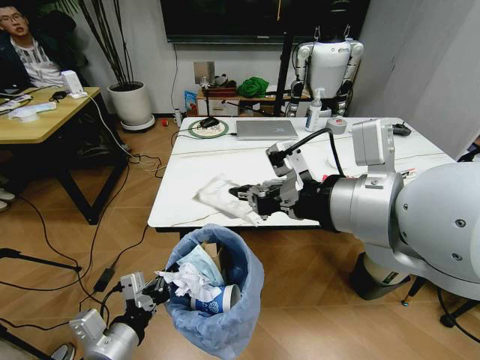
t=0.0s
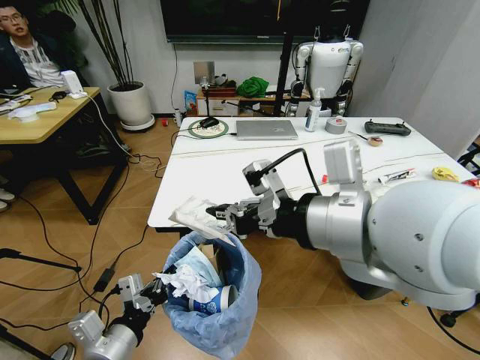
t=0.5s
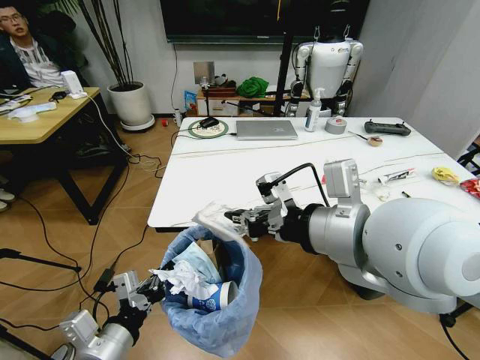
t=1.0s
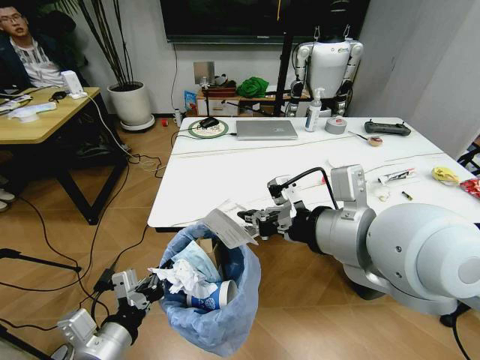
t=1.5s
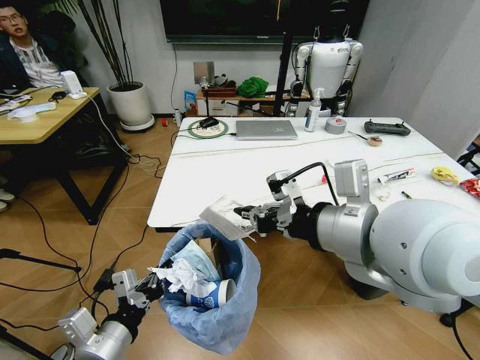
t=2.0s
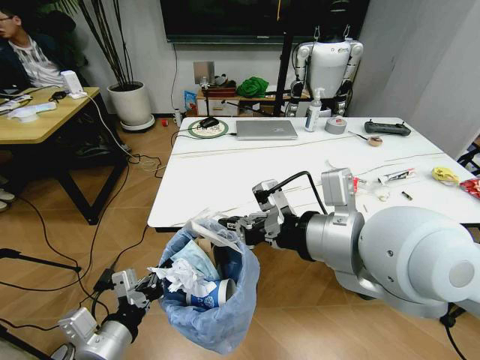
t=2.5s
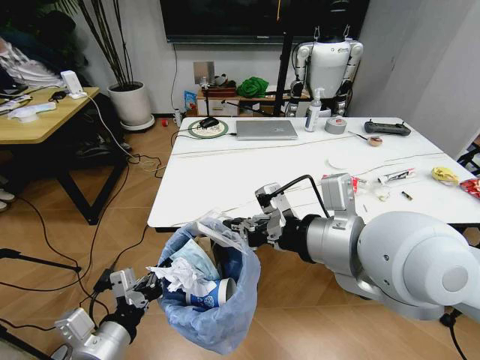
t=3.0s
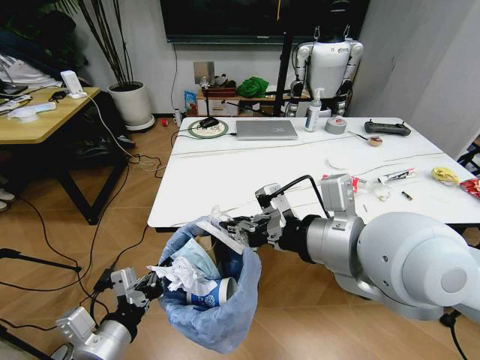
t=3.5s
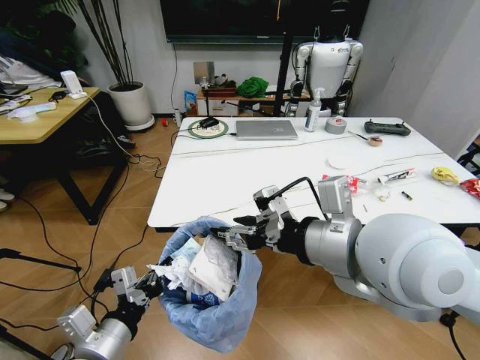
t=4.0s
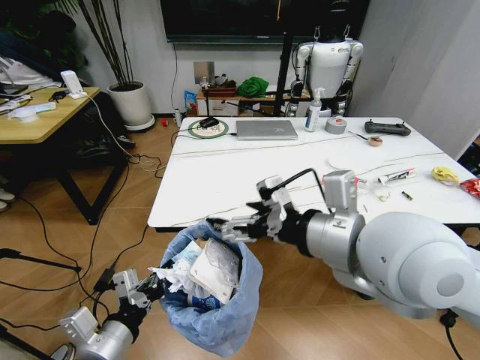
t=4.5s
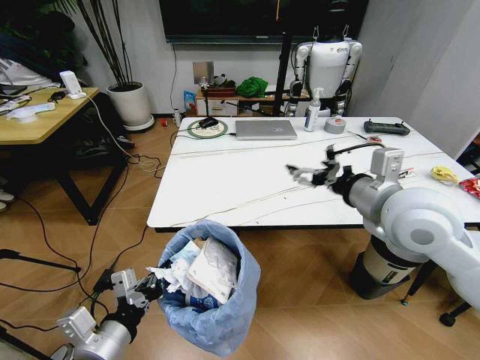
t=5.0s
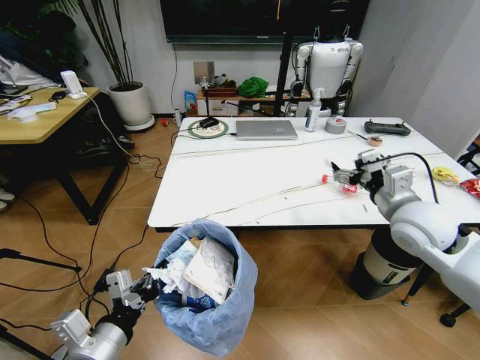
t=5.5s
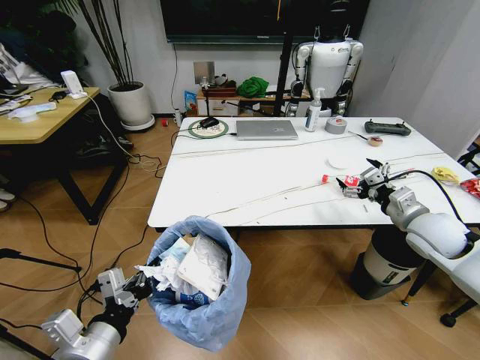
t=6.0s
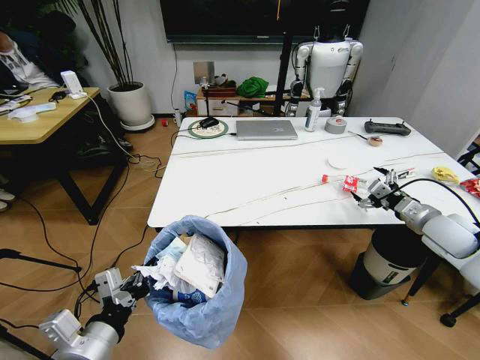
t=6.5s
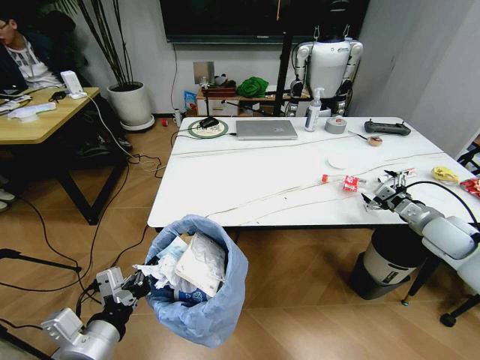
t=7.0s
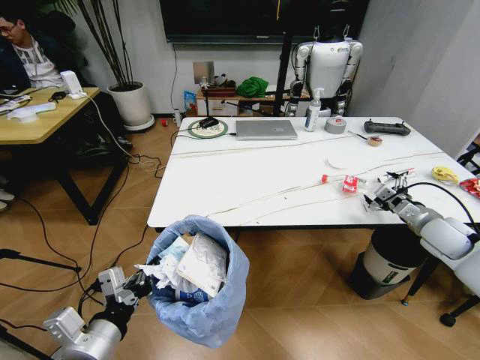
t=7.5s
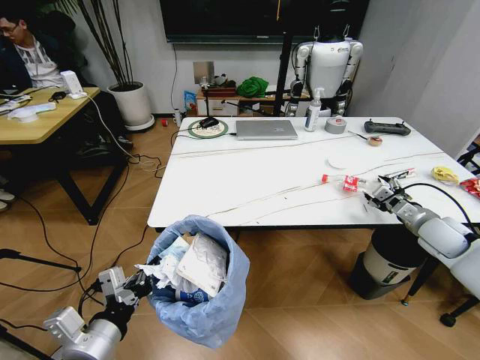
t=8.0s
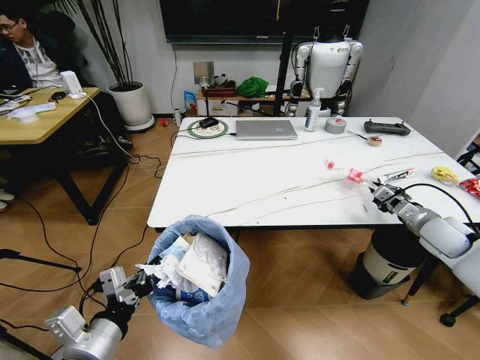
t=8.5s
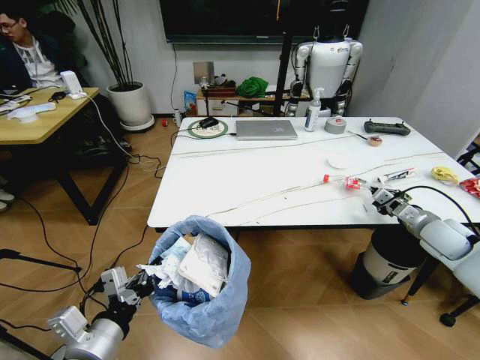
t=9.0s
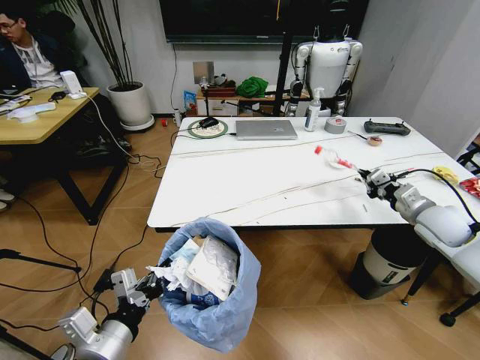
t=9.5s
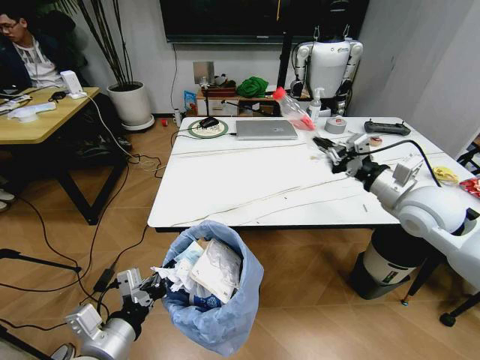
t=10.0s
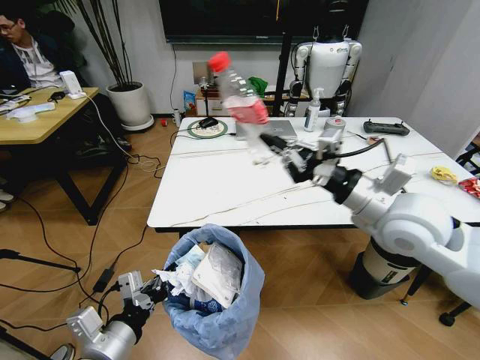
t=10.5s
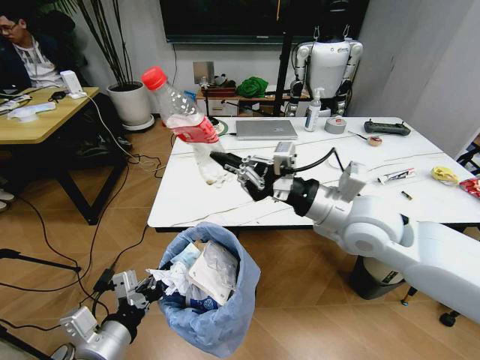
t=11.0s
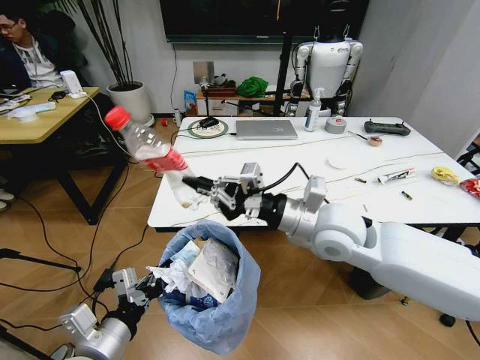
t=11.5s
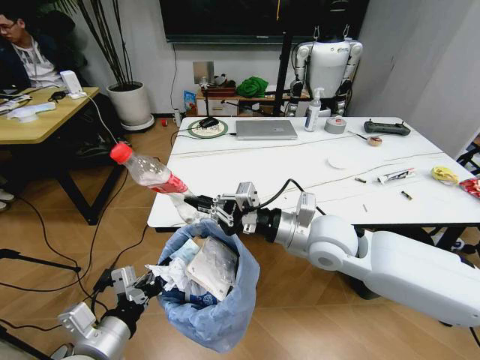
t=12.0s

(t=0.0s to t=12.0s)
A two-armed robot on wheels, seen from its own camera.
Task of the whole recording: Pick up the trash bin and place the trash from the table into it.
t=0.0s - t=2.0s: The right gripper heads downward, covering roughly 5 cm.
t=2.0s - t=4.0s: The right gripper opens.
t=4.0s - t=6.0s: The right gripper travels to the right, downward and forward by some 35 cm, and opens its fingers.
t=6.0s - t=8.0s: The right gripper shifts roughly 10 cm to the right and downward.
t=8.0s - t=10.0s: The right gripper travels to the left and upward by some 20 cm, and closes its fingers.
t=10.0s - t=12.0s: The right gripper is displaced to the left by approximately 20 cm.

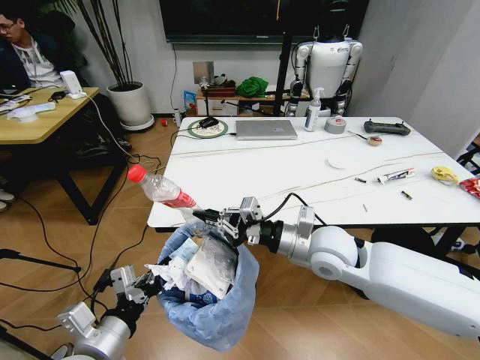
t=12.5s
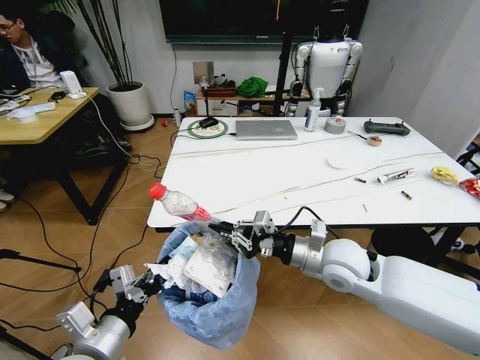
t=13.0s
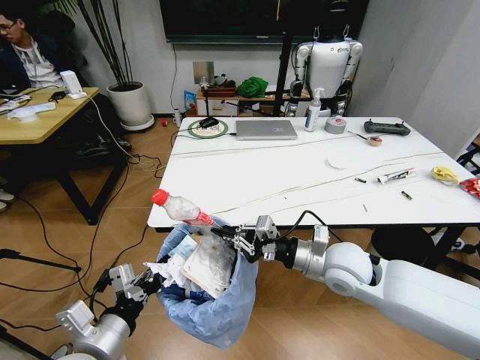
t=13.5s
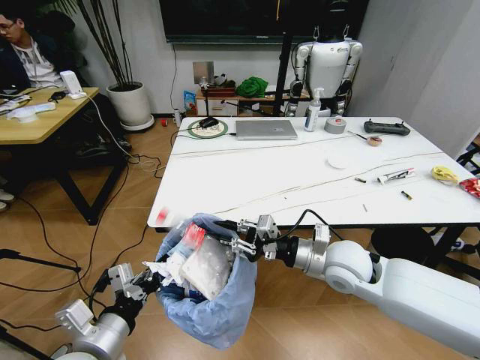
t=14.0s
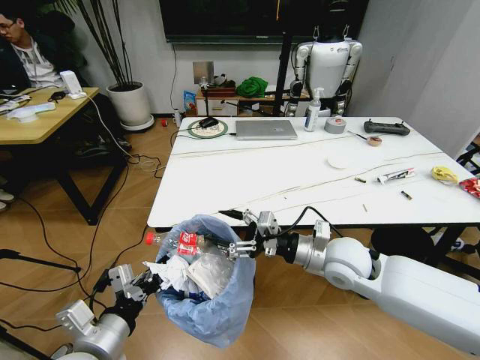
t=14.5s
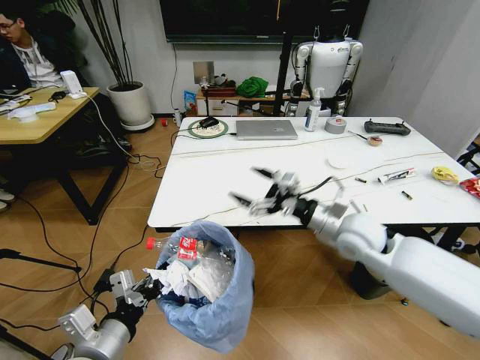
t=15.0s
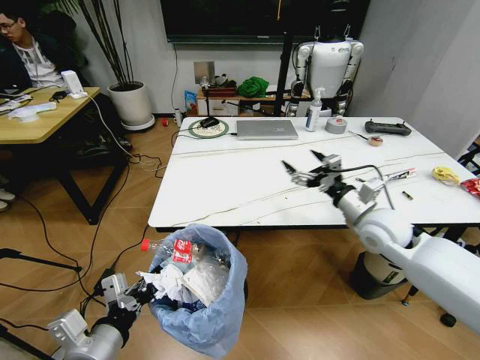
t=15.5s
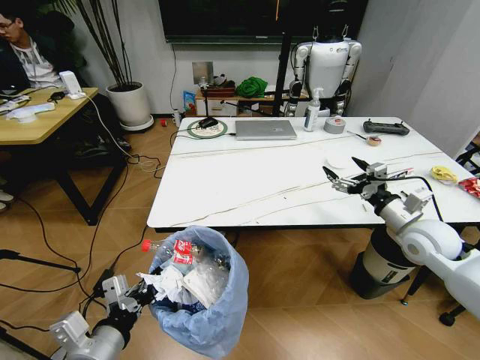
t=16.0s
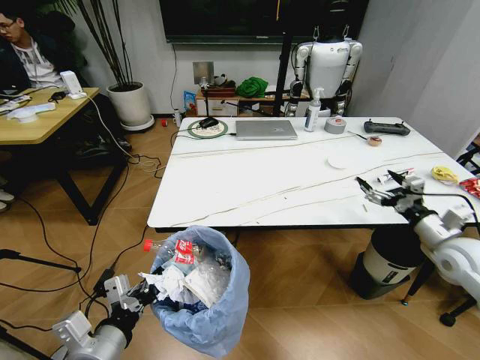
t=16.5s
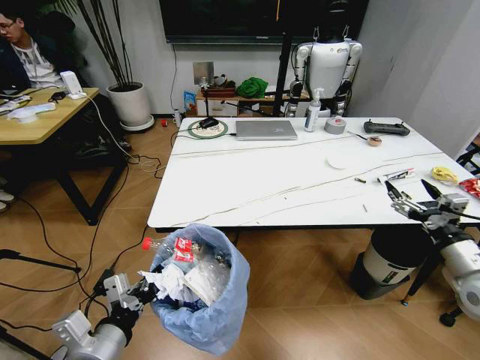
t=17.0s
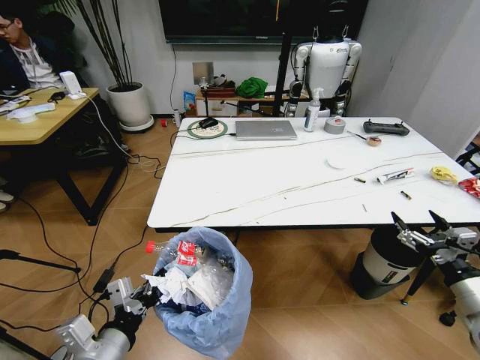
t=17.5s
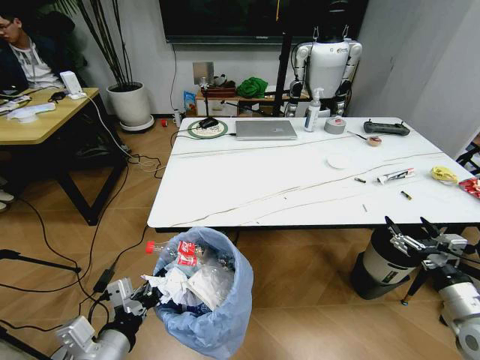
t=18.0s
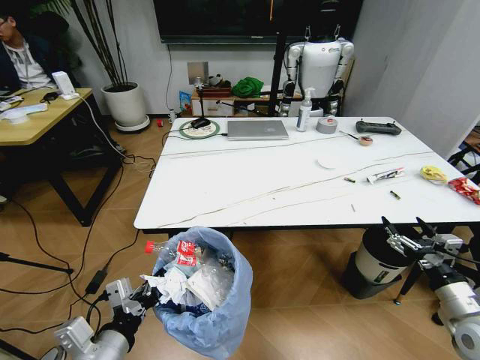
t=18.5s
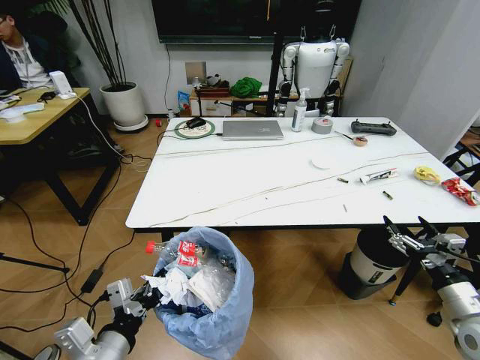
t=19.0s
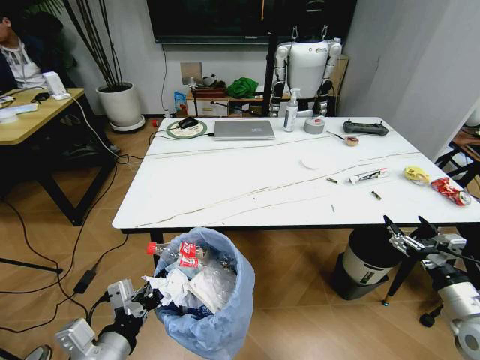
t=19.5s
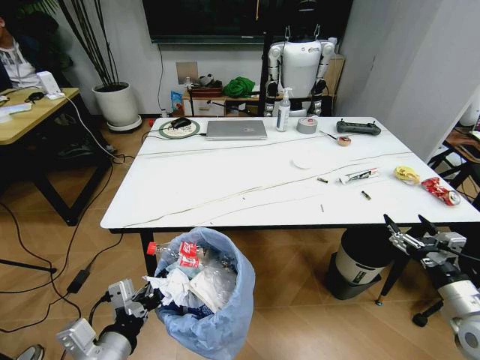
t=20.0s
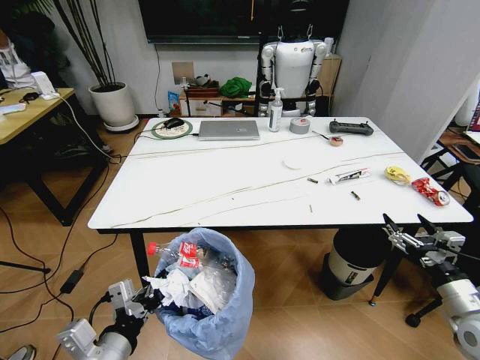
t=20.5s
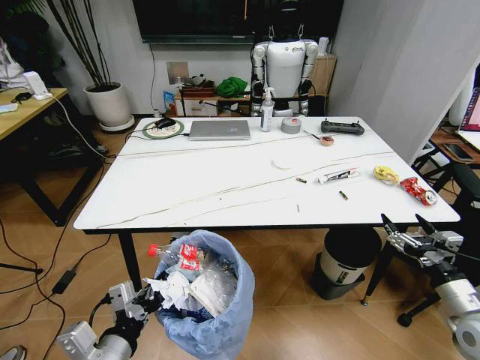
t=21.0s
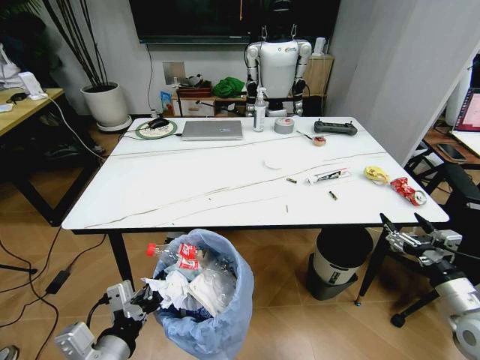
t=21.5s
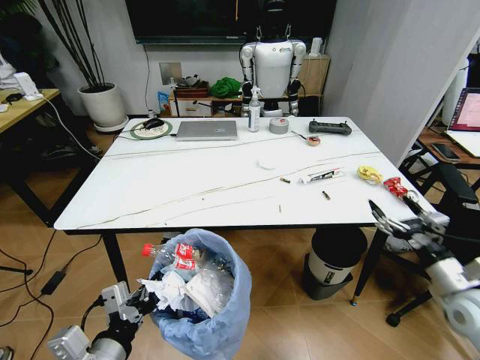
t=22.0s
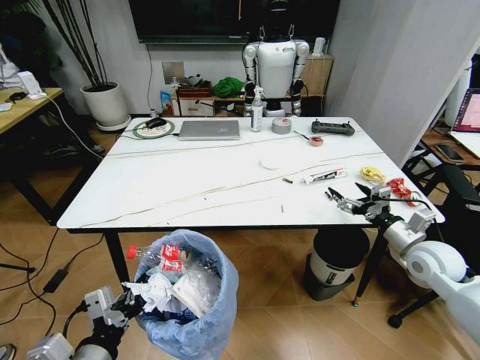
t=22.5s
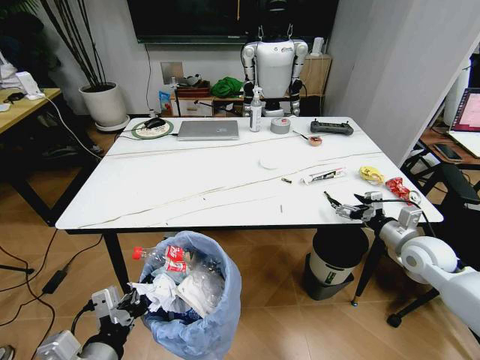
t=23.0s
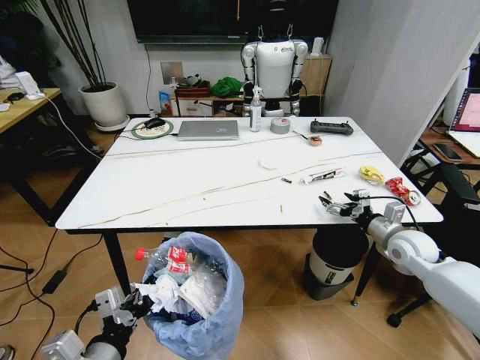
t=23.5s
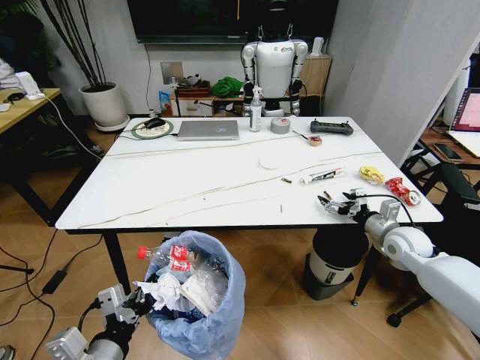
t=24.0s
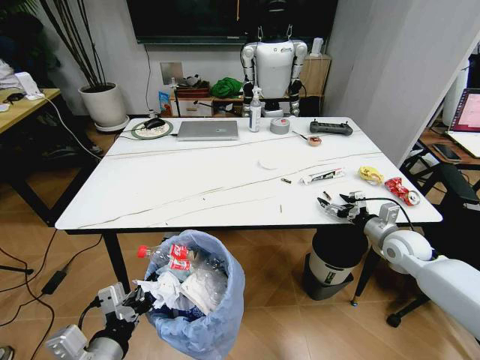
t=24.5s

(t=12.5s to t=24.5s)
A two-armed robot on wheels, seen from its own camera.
Task of the whole recording: Pick up the trash bin and place the trash from the table into it.
t=12.5s - t=14.5s: The right gripper opens its fingers.
t=14.5s - t=16.5s: The right gripper moves to the right, about 25 cm.
t=16.5s - t=18.5s: The right gripper goes some 15 cm backward and downward.
t=20.5s - t=22.5s: The right gripper travels forward by about 15 cm.
t=22.5s - t=24.5s: The right gripper moves forward, approximately 5 cm.

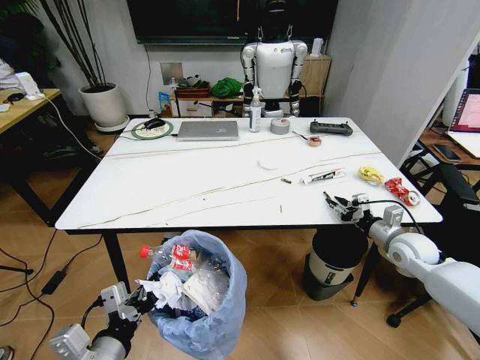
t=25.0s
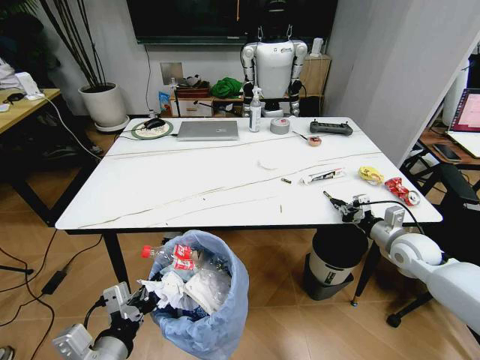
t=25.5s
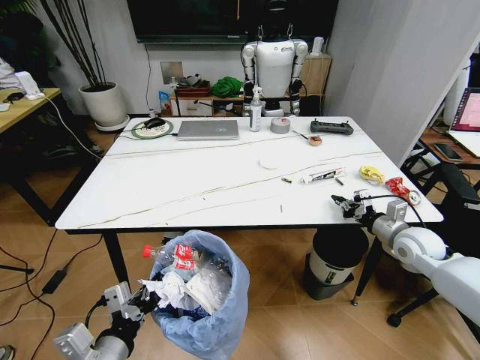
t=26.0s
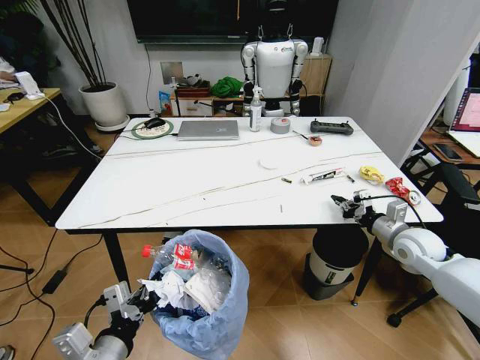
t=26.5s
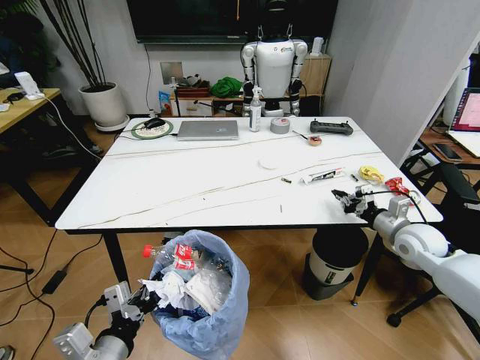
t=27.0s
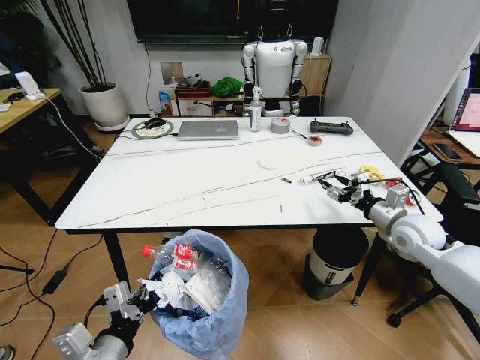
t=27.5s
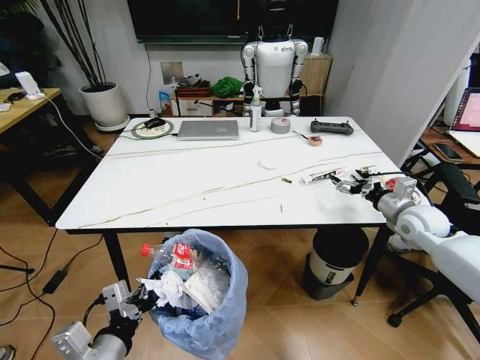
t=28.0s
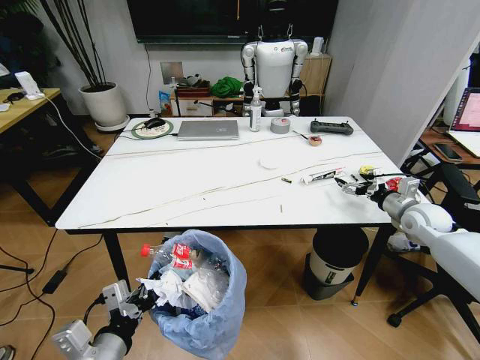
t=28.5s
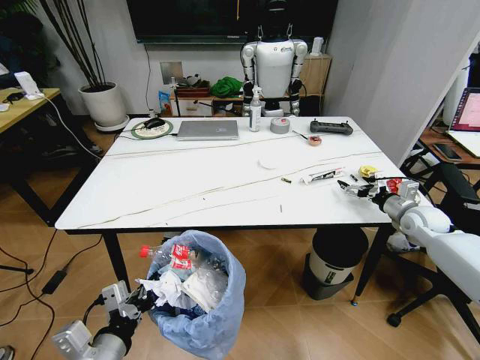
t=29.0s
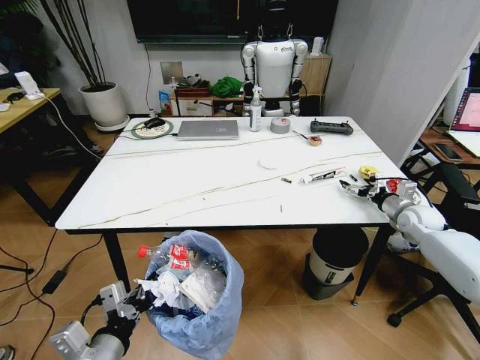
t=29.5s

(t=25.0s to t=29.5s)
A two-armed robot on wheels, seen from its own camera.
Task of the whole recording: Pick up the trash bin and place the trash from the table into it.
t=25.0s - t=27.0s: There are only small adjustments of the grippers.
t=27.0s - t=29.5s: The right gripper moves forward and to the right, approximately 10 cm, and opens its fingers.
